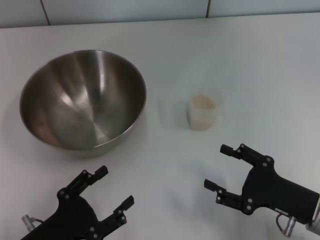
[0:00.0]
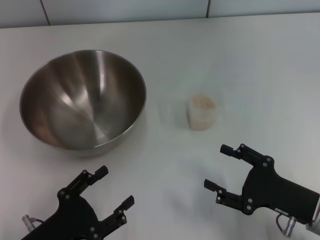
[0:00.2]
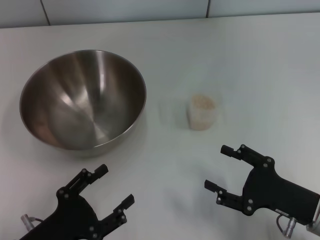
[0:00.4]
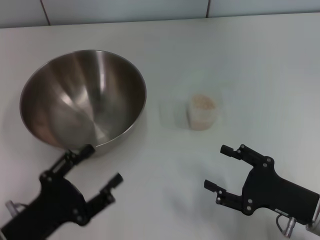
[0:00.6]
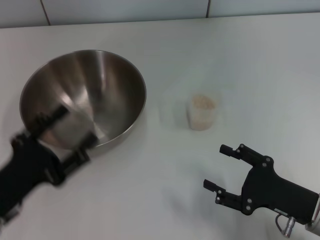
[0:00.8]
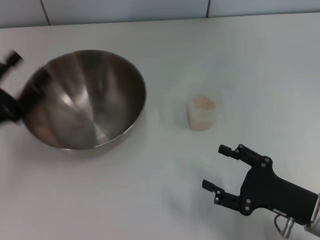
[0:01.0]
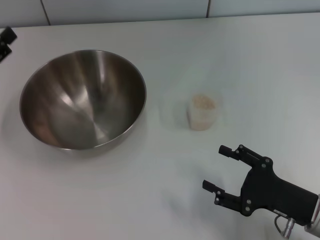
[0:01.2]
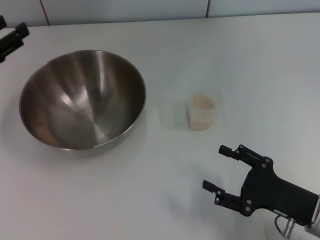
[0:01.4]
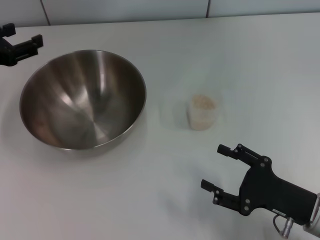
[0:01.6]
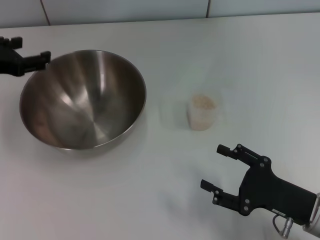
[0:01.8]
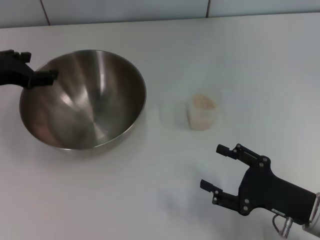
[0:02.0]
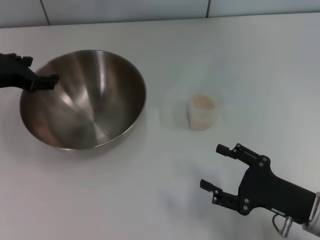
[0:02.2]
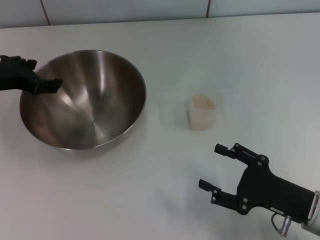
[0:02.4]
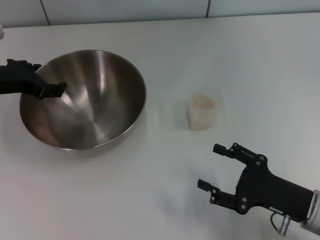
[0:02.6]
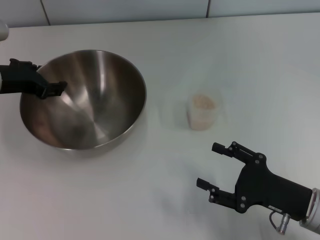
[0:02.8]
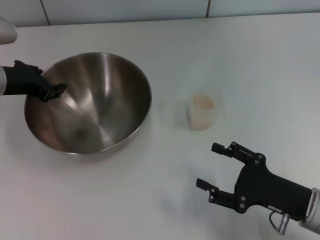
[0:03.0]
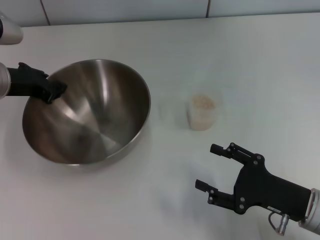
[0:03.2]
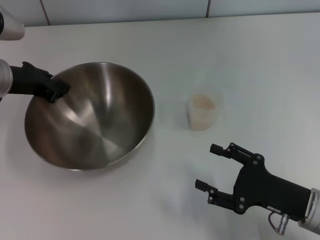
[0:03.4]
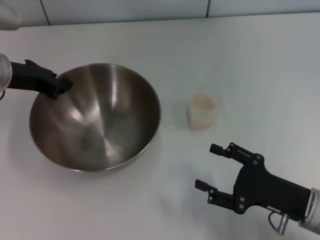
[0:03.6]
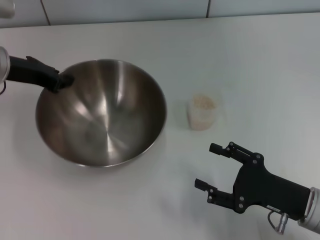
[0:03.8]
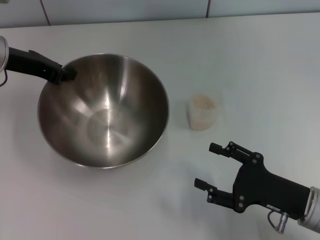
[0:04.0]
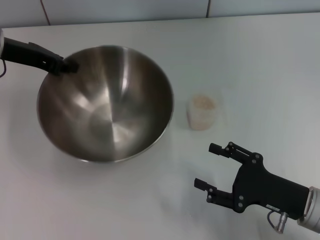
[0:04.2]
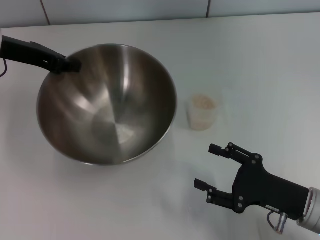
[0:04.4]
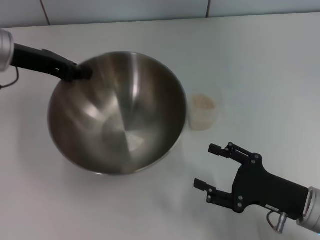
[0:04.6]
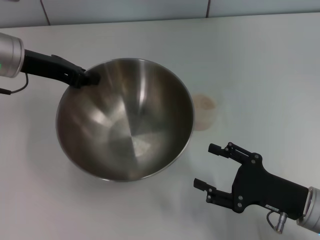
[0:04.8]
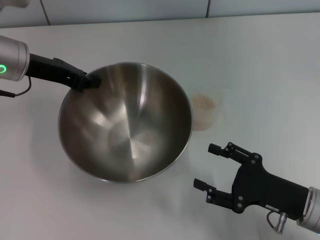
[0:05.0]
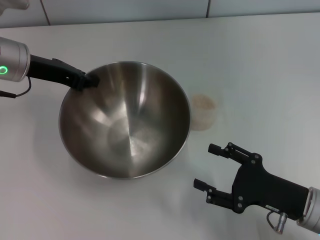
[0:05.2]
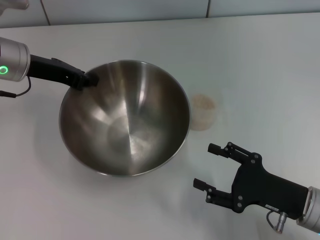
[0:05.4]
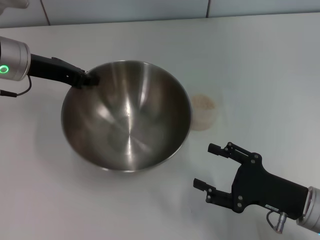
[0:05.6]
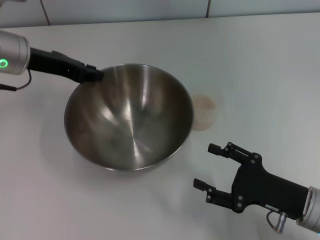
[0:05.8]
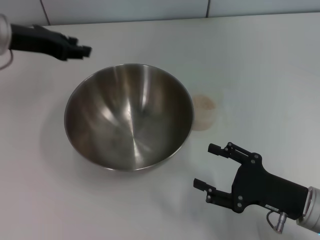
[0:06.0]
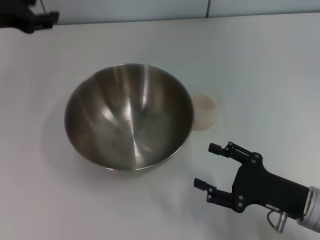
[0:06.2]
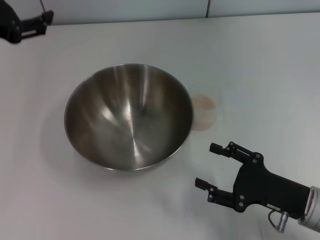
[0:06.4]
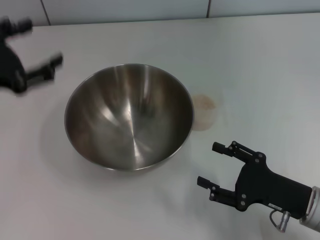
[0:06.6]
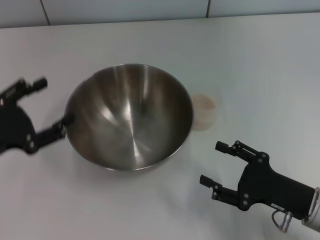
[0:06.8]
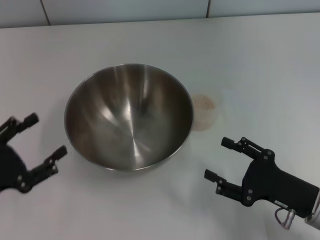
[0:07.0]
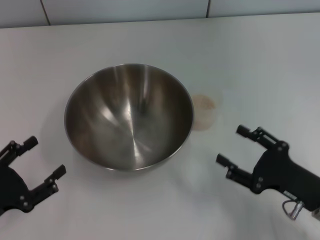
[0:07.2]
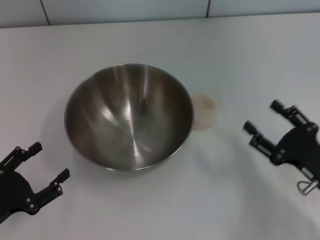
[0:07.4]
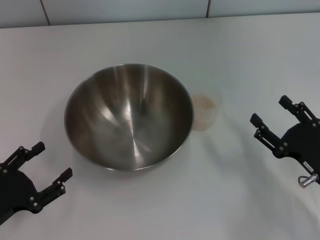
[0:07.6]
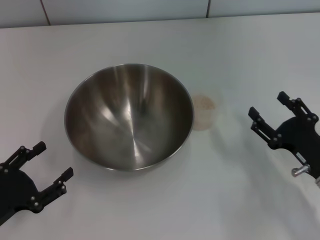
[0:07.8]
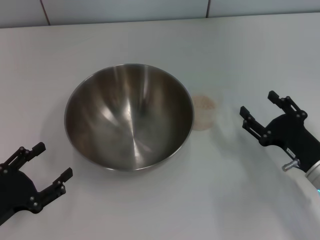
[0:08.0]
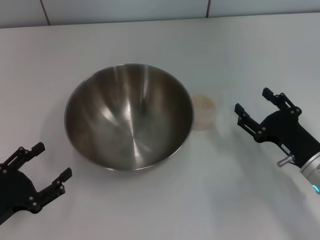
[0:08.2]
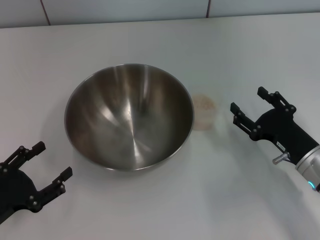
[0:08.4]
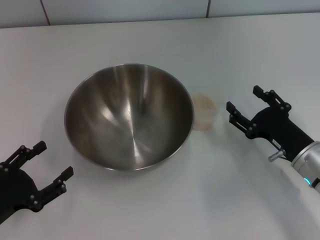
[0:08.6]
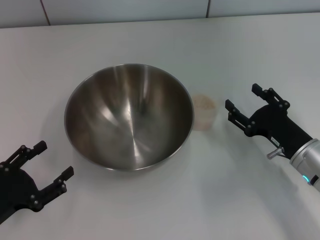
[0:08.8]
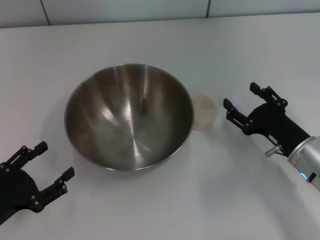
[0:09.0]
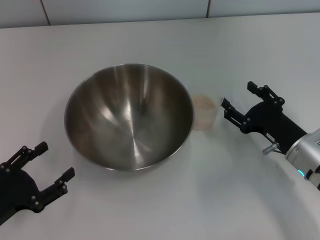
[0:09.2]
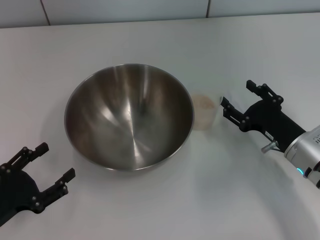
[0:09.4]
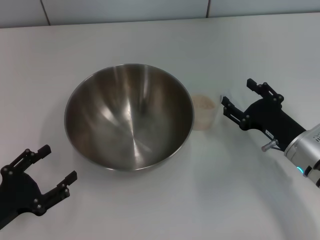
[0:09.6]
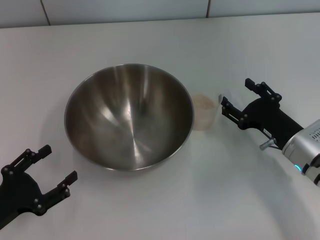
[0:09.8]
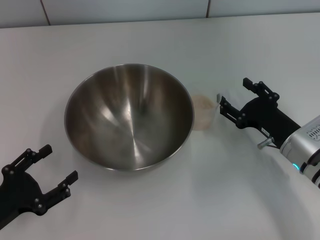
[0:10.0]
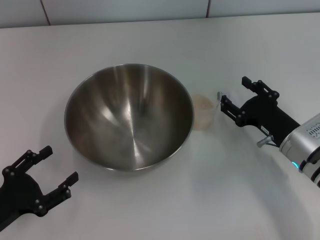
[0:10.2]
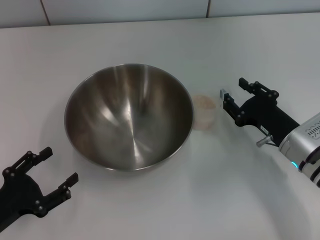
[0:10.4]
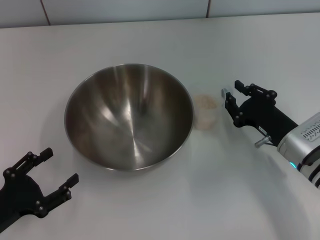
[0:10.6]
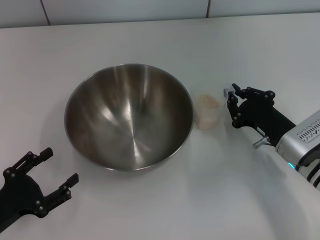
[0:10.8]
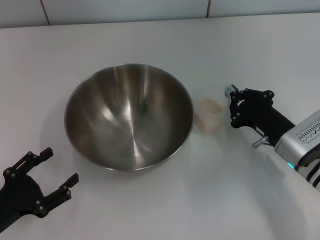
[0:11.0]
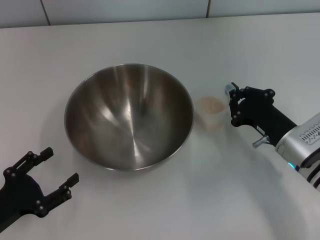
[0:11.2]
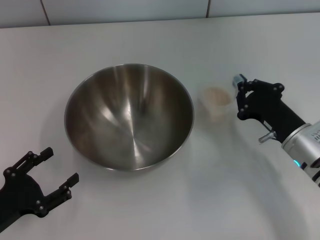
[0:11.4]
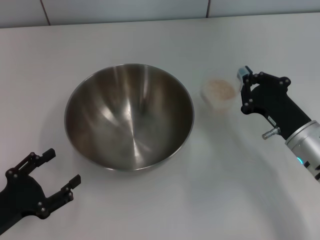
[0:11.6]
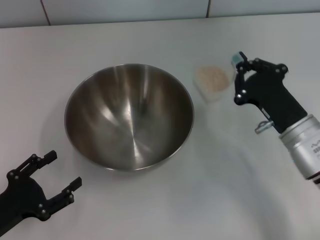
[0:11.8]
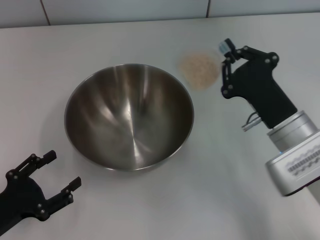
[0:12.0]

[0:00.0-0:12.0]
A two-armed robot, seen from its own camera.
Task of the whole recording: Place the bowl in the middle of the table with one hand and pour the rice from the grain cup into it with the other hand.
Step, 0:00.0 to 0:04.0: Pick up the bowl with the left gripper.
Step, 0:04.2 to 0:06.4: Place the bowl in the center of view with the left gripper.
Step, 0:06.6 to 0:11.6: Pick up the cup with rice in it with the right gripper.
0:00.0 to 0:01.6: The left gripper heads forward and upward, covering approximately 25 cm.
0:01.6 to 0:03.0: The left gripper is displaced to the right by approximately 5 cm.
0:03.0 to 0:04.4: The left gripper shifts by some 5 cm, and closes.
0:04.4 to 0:06.0: The grippers move only a little.
0:06.0 to 0:07.6: The left gripper is displaced backward and downward by approximately 30 cm, and opens up.
0:07.6 to 0:09.0: The right gripper moves forward, roughly 5 cm.
0:09.0 to 0:10.4: The grippers stay close to where they were, moving slightly.
0:10.4 to 0:12.0: The right gripper changes place by approximately 5 cm, and closes.

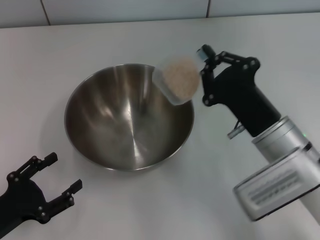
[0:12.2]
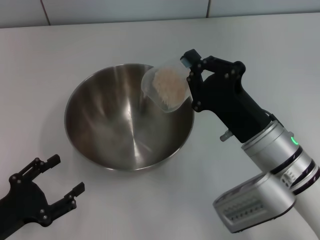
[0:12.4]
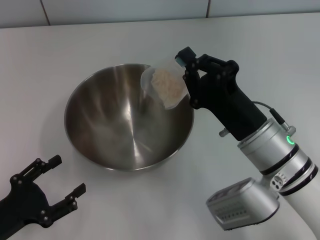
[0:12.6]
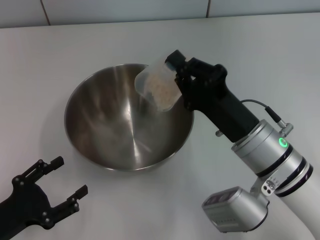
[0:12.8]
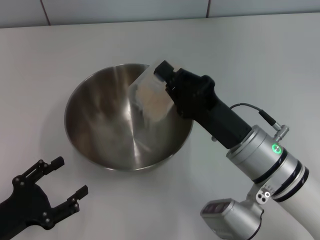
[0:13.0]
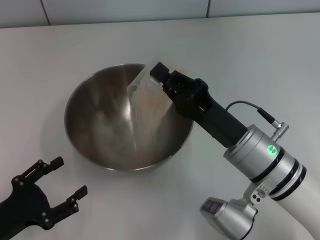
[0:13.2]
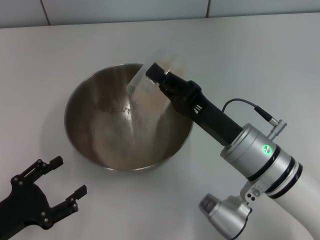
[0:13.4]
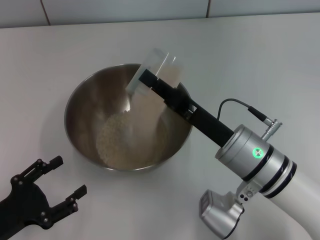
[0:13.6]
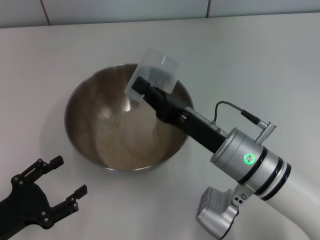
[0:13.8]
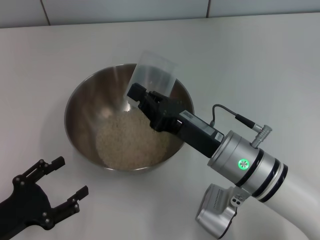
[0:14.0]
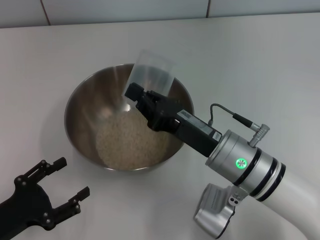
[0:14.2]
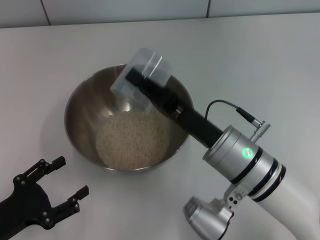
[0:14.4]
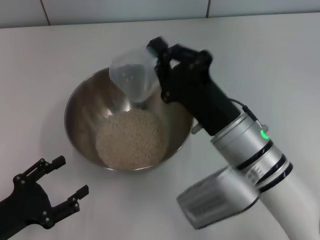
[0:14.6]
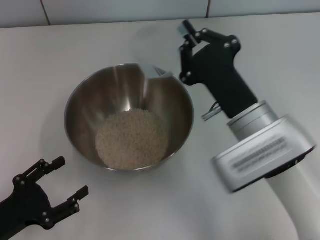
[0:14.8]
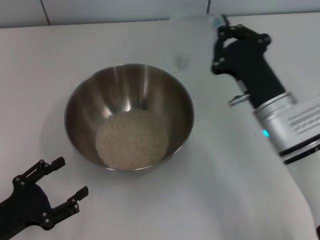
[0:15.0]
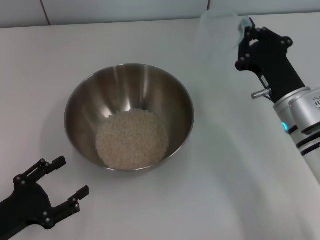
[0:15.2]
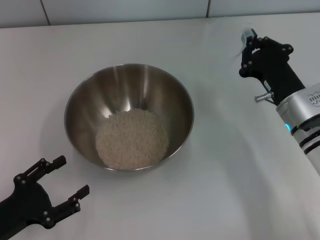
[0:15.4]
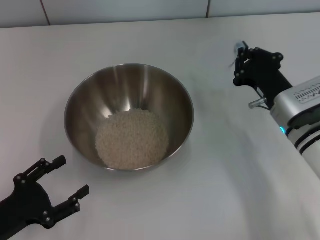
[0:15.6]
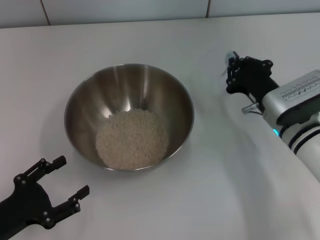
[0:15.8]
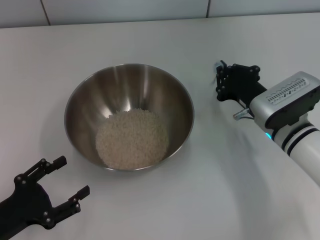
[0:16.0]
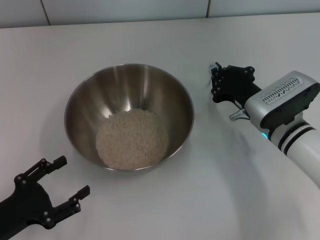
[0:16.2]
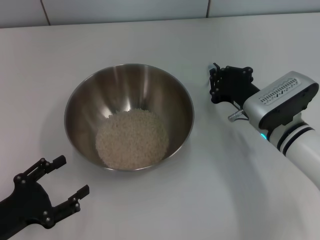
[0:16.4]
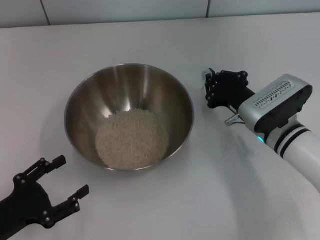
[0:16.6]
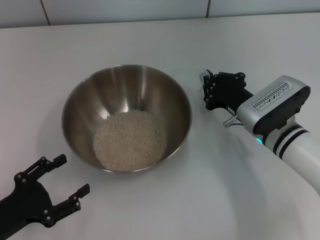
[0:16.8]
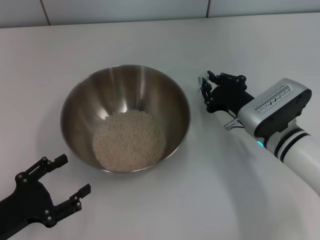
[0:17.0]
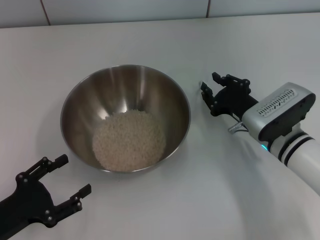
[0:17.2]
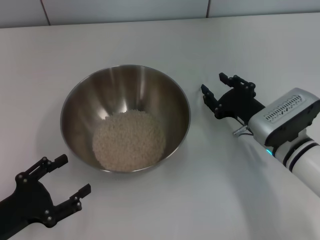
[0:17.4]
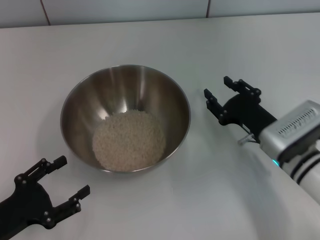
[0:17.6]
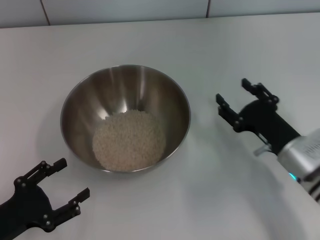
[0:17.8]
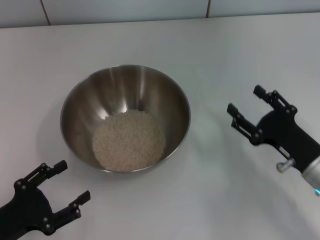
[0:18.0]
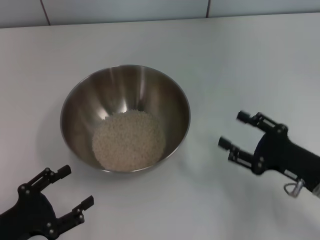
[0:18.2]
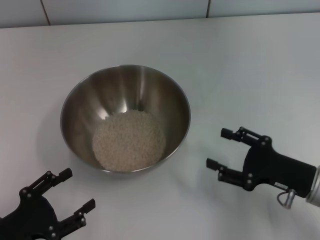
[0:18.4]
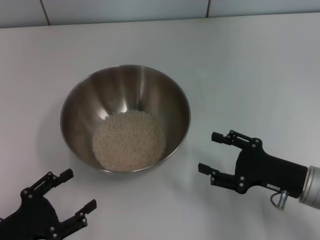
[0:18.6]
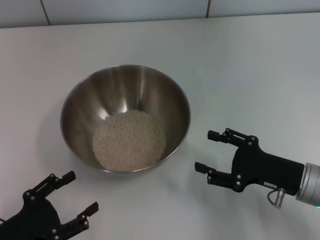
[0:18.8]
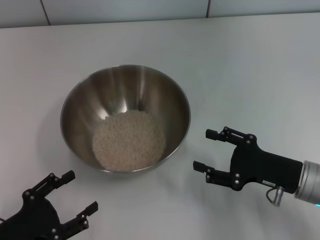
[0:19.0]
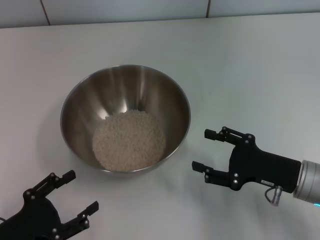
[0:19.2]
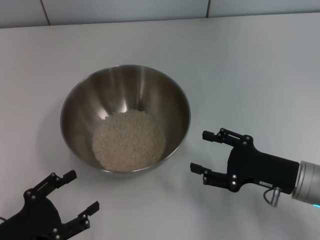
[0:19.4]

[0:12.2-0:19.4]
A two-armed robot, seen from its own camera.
Task of the whole recording: Place the bowl in the middle of the table with one hand and pour the rice from the grain cup into it with the other hand.
Step, 0:12.2 to 0:15.2: Pour the rice from the cup into the bowl with the right gripper.
Step, 0:15.4 to 0:17.8: Place the cup on the table with the right gripper.
0:13.6 to 0:15.0: The right gripper moves approximately 5 cm.
0:15.0 to 0:16.6: The right gripper shifts some 5 cm downward.
0:16.6 to 0:18.0: The right gripper goes some 10 cm backward and to the right, and opens.
